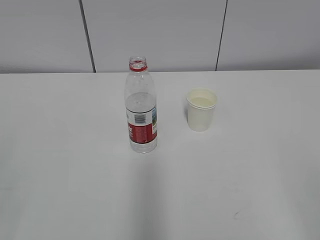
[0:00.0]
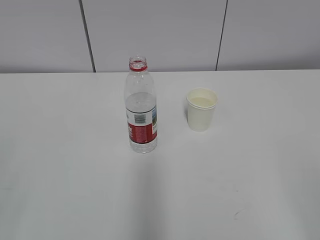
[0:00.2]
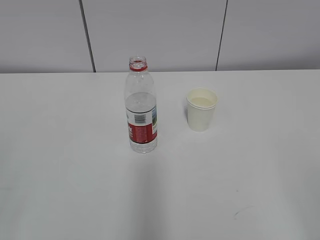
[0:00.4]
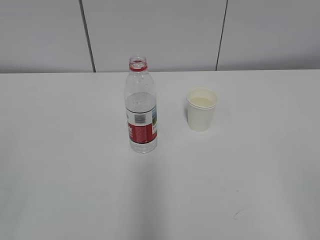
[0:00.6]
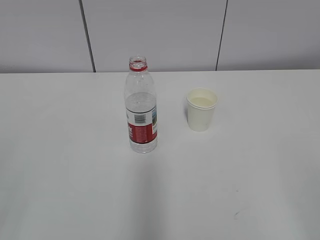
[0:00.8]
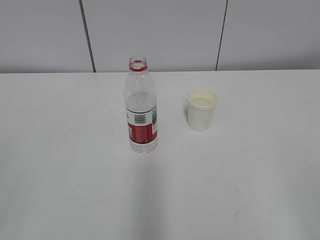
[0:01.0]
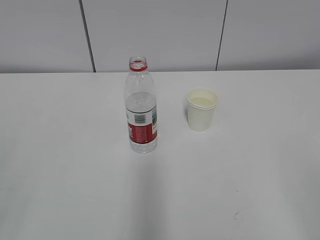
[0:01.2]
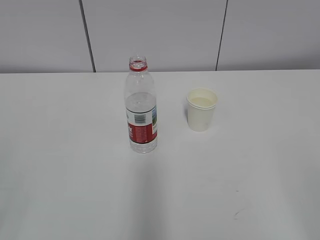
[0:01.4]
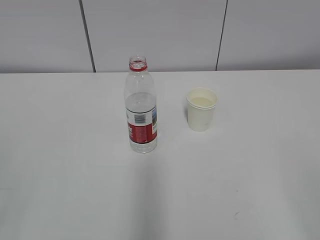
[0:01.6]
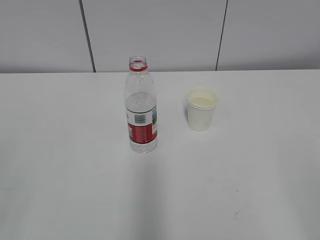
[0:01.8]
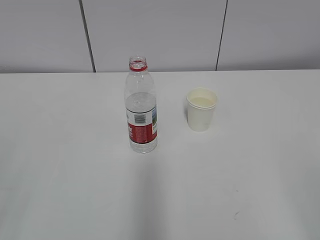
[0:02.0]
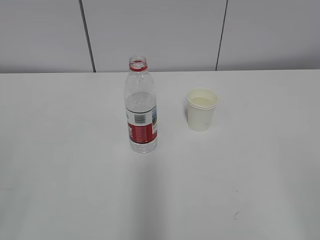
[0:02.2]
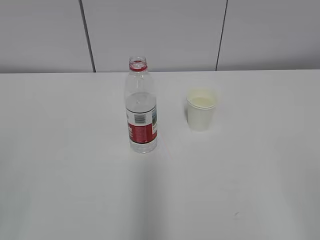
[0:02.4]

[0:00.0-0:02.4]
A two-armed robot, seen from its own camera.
0:00.0 to 0:02.4: Both grippers stay put.
